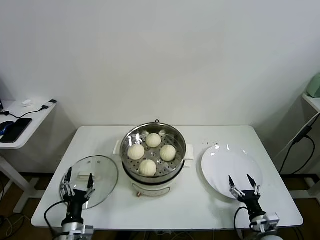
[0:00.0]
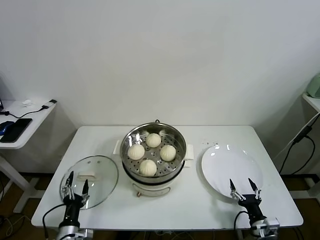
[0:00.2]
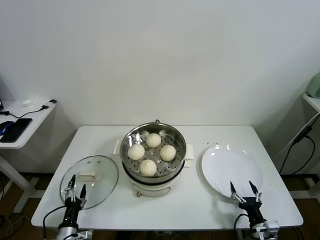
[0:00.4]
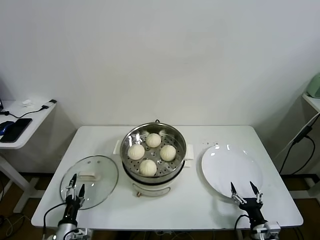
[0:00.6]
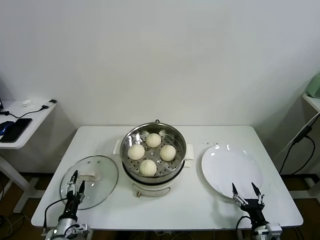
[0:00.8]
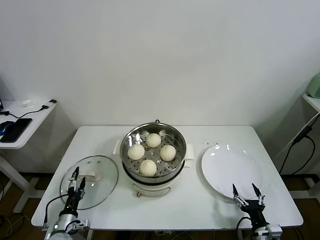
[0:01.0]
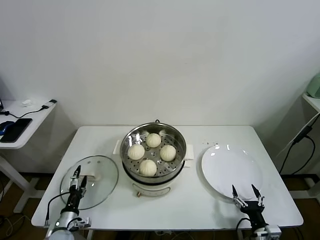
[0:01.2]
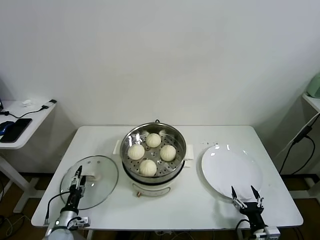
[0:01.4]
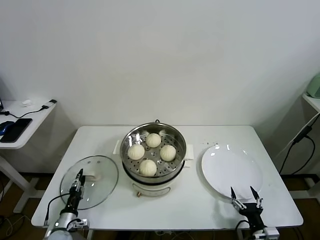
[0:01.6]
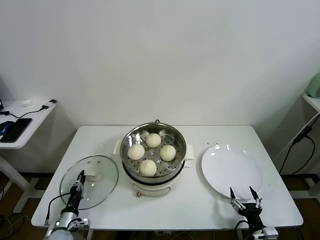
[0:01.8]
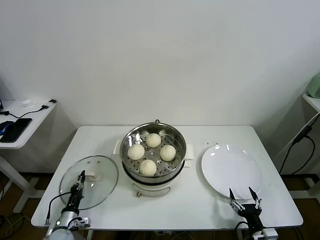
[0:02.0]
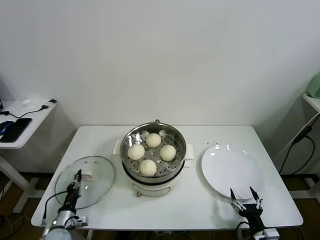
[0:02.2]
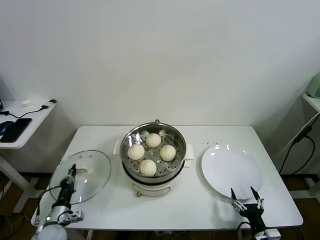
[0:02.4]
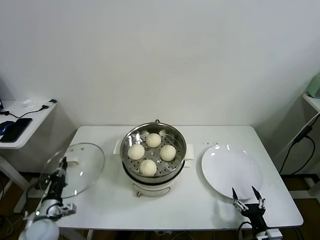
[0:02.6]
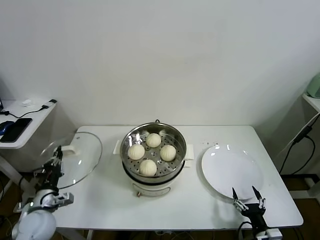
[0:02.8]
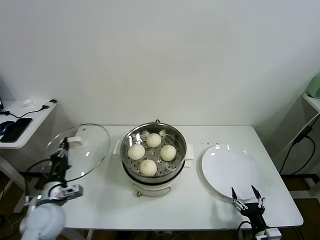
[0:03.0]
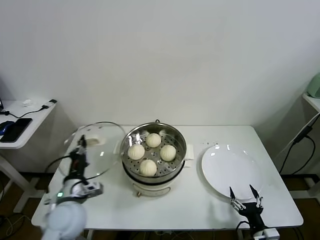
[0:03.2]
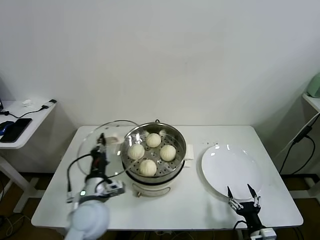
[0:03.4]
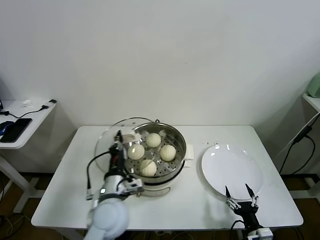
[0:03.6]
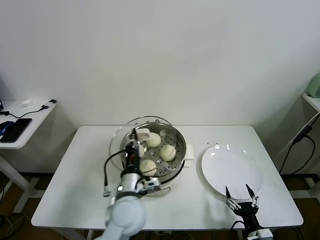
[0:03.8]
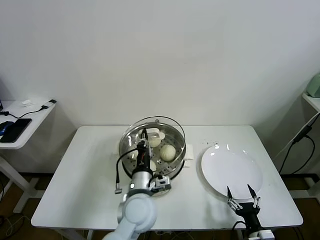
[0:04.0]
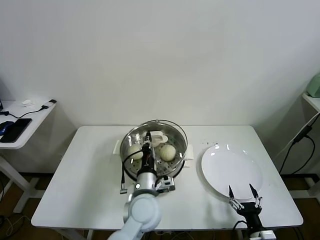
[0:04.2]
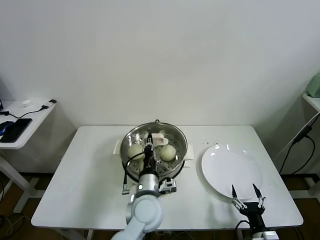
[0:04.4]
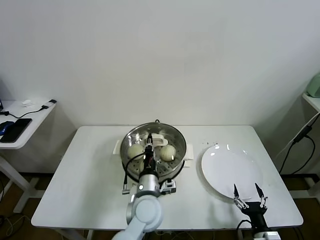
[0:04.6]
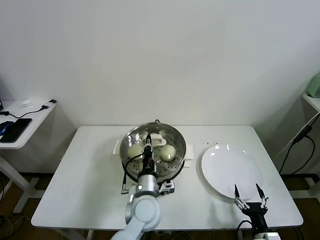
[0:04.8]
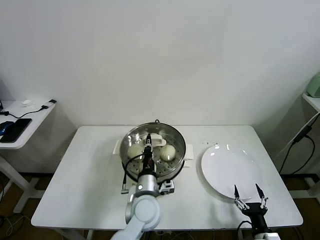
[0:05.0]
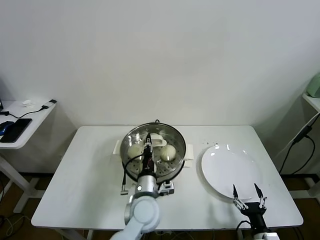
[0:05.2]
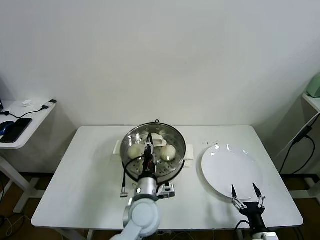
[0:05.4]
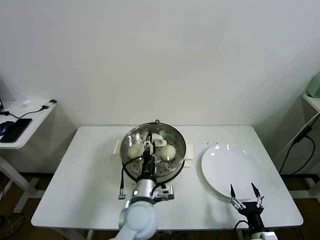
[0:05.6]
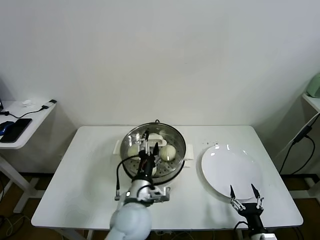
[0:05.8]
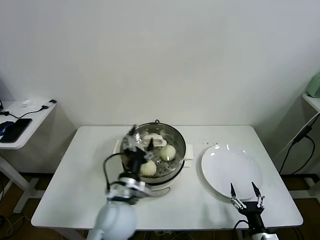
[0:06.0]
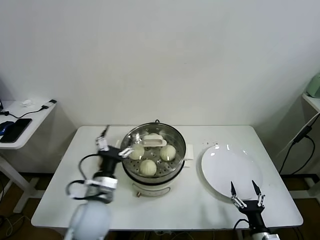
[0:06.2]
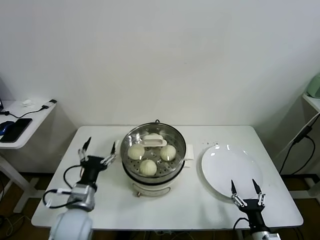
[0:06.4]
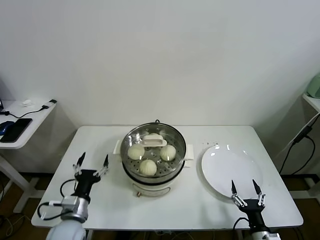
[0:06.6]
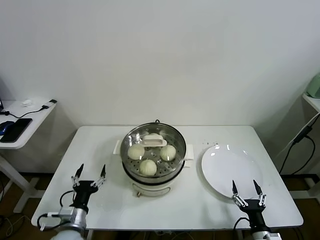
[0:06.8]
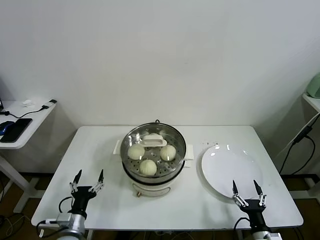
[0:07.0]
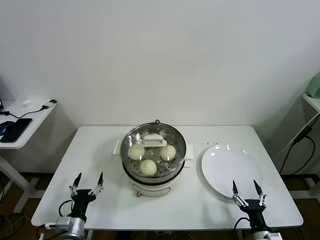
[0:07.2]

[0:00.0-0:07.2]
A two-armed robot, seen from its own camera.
Task of the whole recording: take steamed baozi put them in steamer.
Step, 0:02.0 to 0:05.0: Place the pot lid on the steamer with left gripper.
0:00.0 to 0:01.4: The left gripper goes some 15 cm to the left, downward and forward.
0:01.4 to 0:02.8: The left gripper shifts approximately 15 cm upward, and closes.
0:02.8 to 0:04.4: The left gripper goes some 35 cm to the right.
0:04.4 to 0:05.8: The left gripper opens its fingers.
0:05.8 to 0:07.2: The left gripper heads to the left and downward, covering approximately 25 cm.
